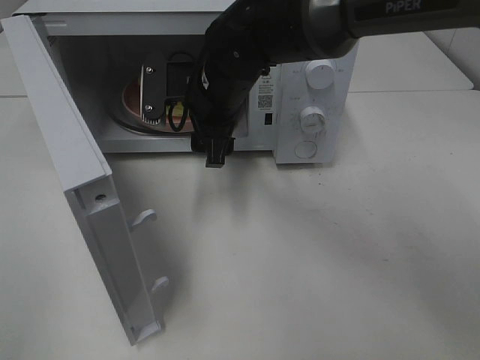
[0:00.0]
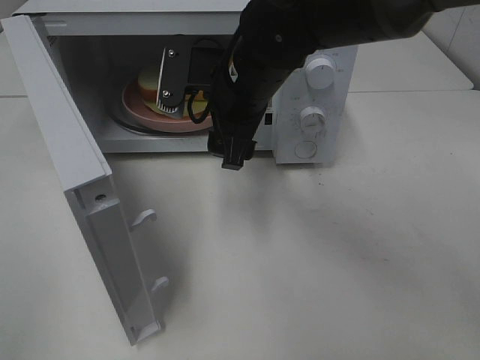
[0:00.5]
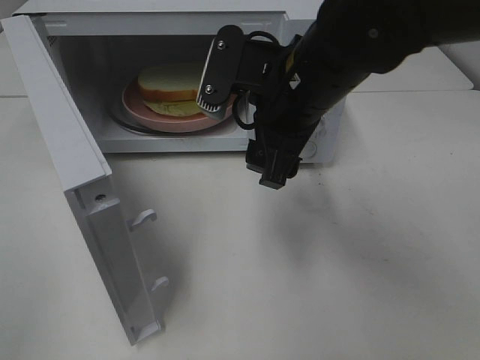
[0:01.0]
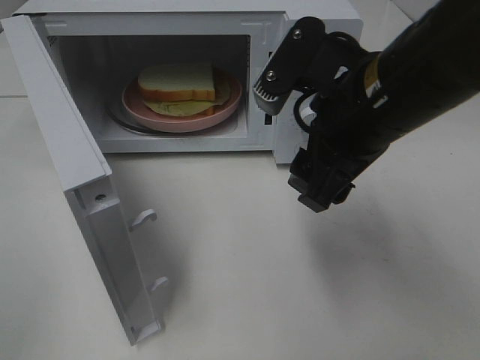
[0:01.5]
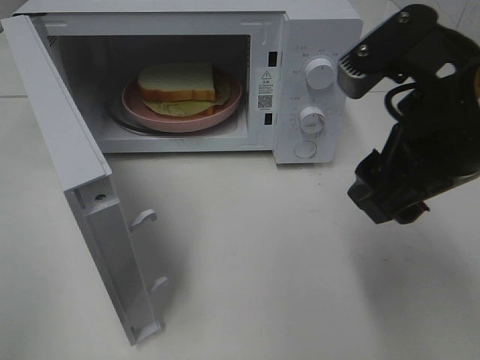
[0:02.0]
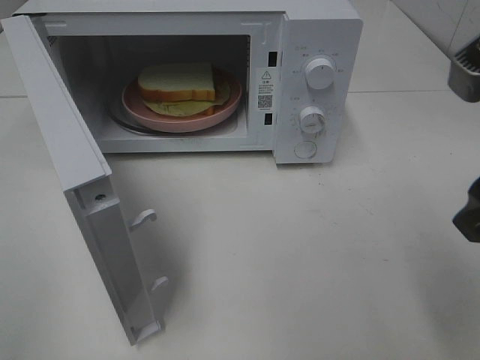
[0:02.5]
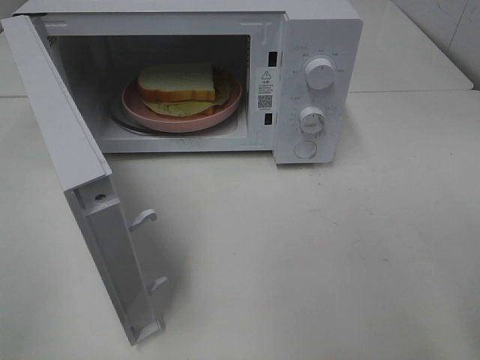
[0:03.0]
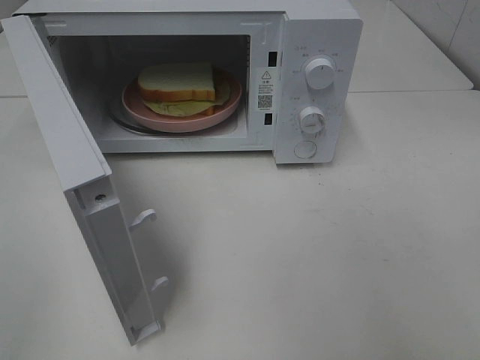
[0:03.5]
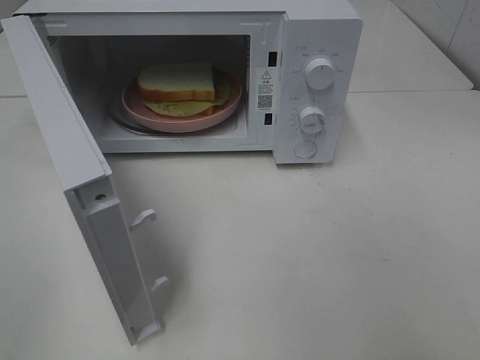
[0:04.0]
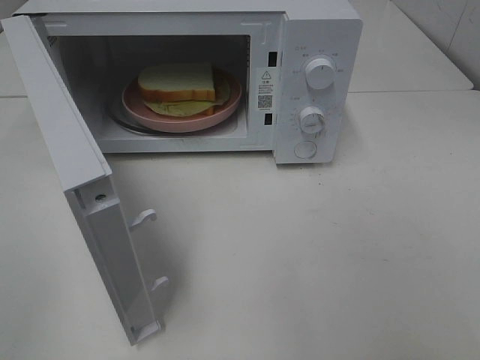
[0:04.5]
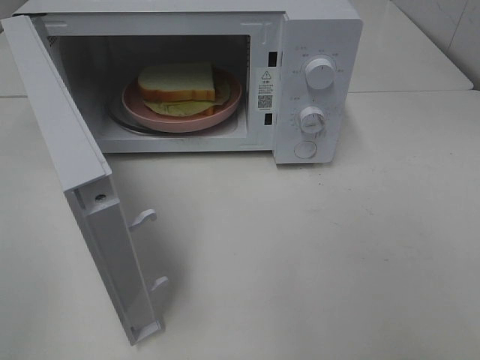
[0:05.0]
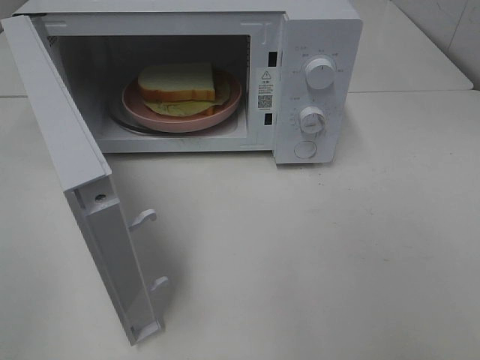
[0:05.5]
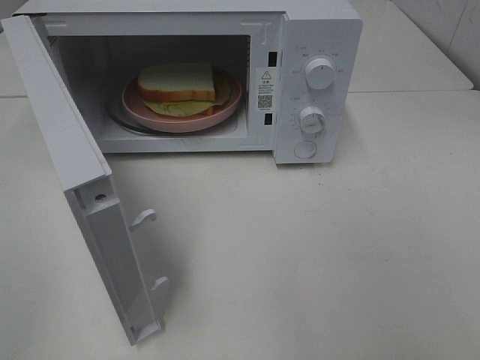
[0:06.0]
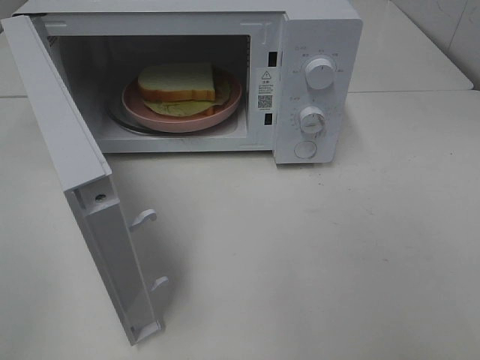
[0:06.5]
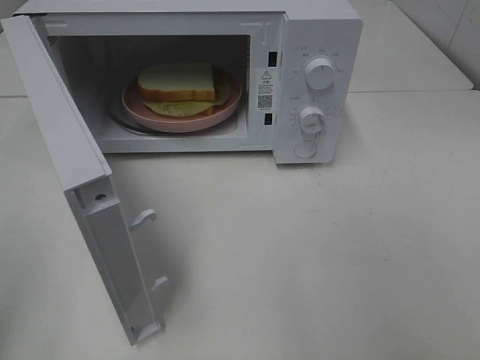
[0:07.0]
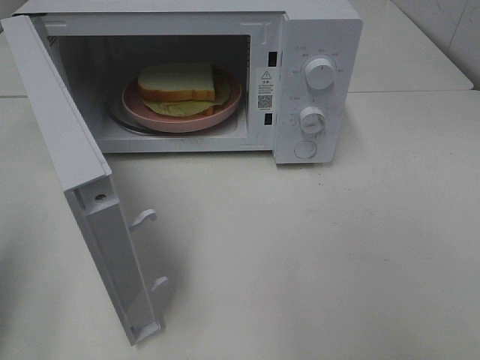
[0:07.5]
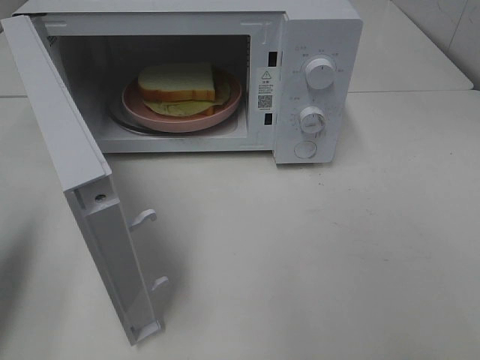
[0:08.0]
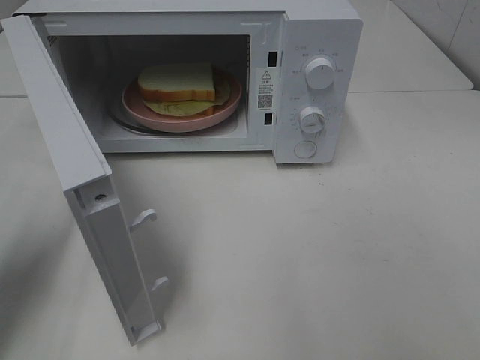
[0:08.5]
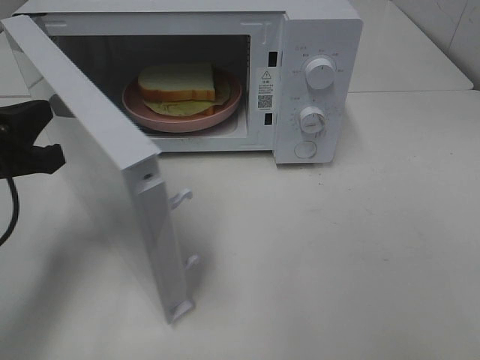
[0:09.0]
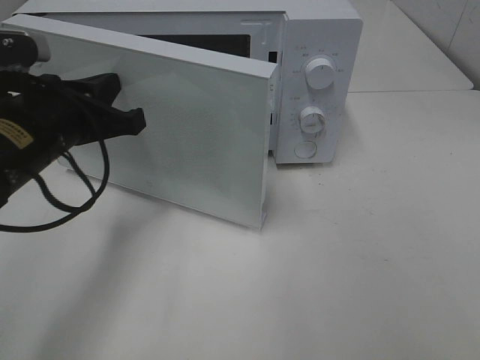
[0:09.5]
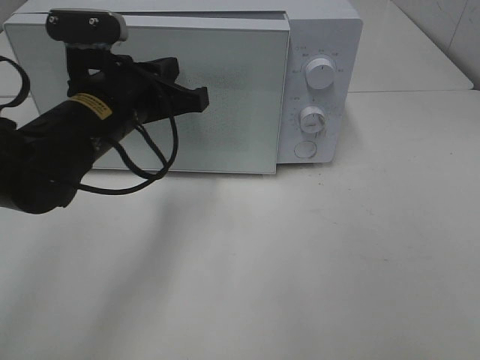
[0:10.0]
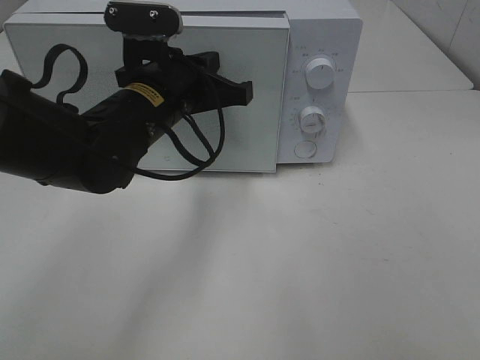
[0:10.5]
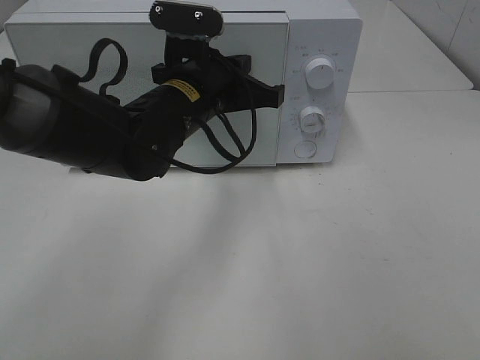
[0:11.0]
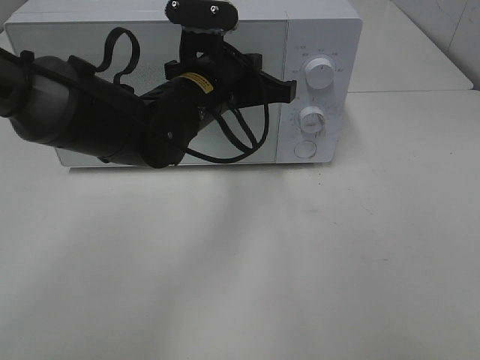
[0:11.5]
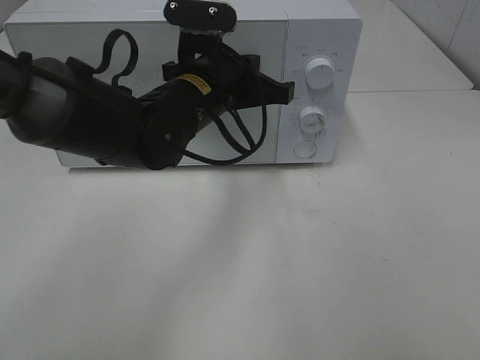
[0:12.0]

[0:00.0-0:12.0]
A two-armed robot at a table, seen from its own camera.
Task of the whole recording: Heat Sandwich.
0:00.0 to 0:02.0: The right gripper shifts approximately 25 cm backward, to the right and upward.
0:02.0 to 0:04.0: The right gripper heads backward and to the right, covering some 20 cm.
0:06.0 to 0:08.0: The left gripper is displaced forward by about 15 cm, and closes.
0:08.0 to 0:10.0: The left gripper is displaced to the right and forward by roughly 25 cm.
0:10.0 to 0:12.0: The left gripper is displaced to the right by approximately 10 cm.

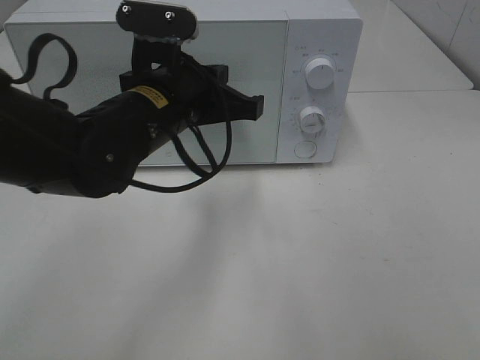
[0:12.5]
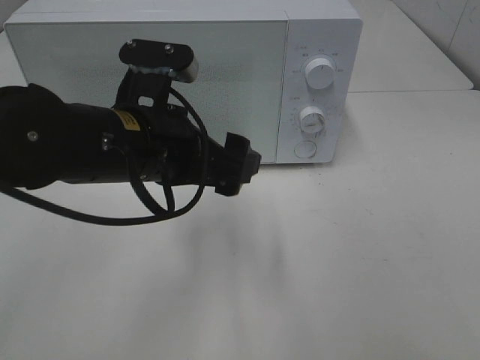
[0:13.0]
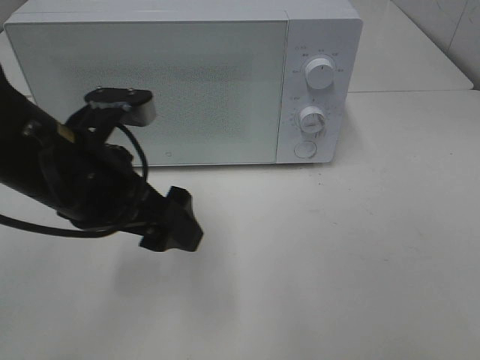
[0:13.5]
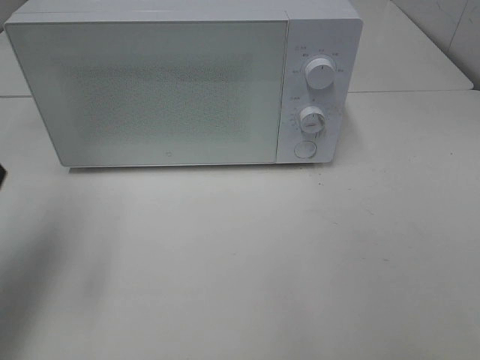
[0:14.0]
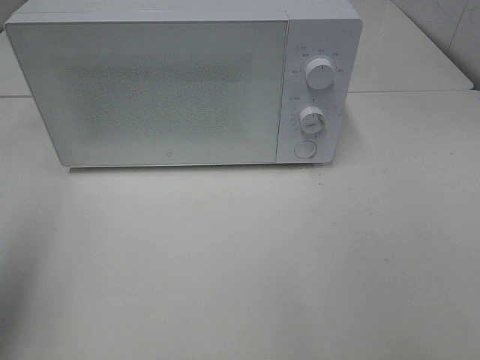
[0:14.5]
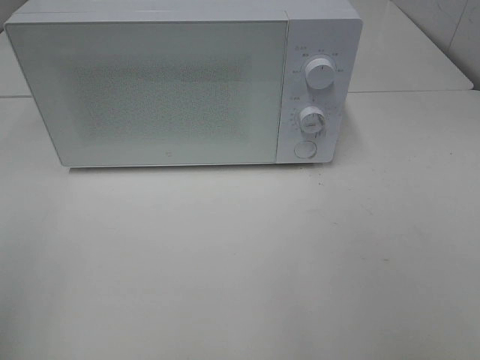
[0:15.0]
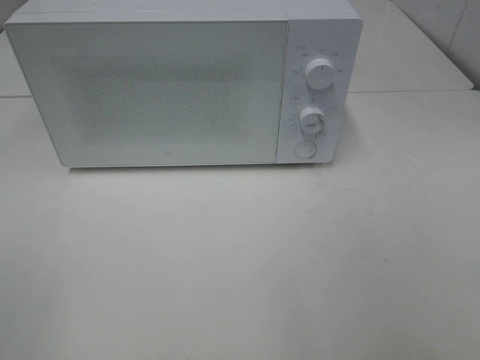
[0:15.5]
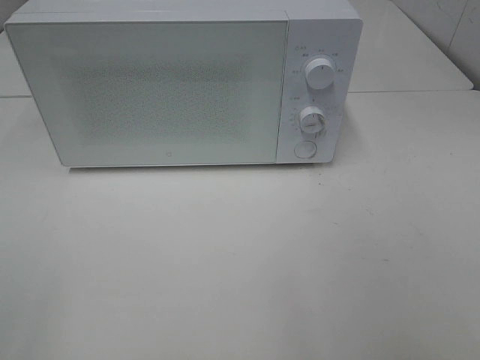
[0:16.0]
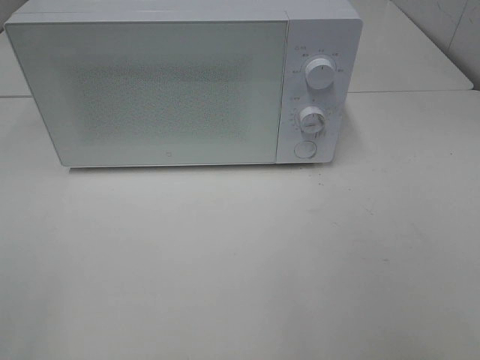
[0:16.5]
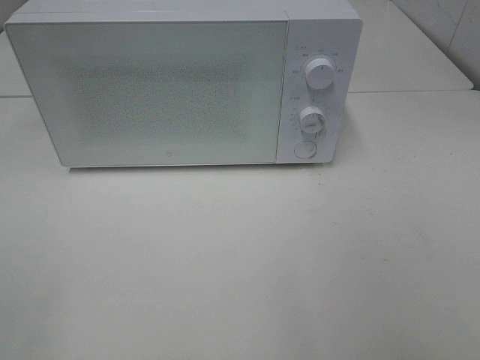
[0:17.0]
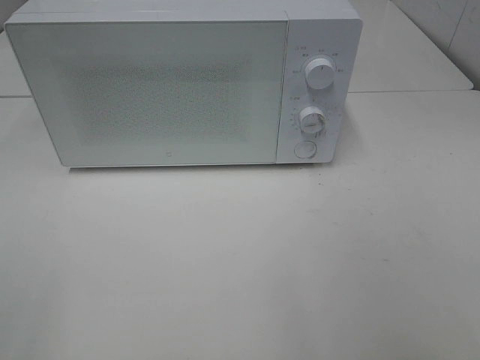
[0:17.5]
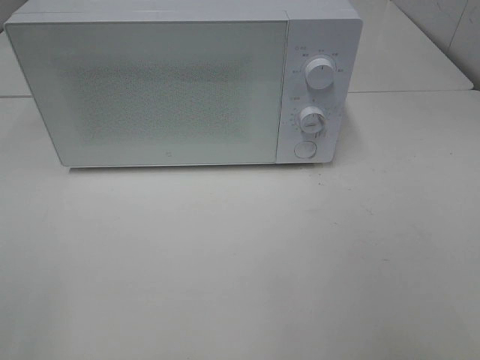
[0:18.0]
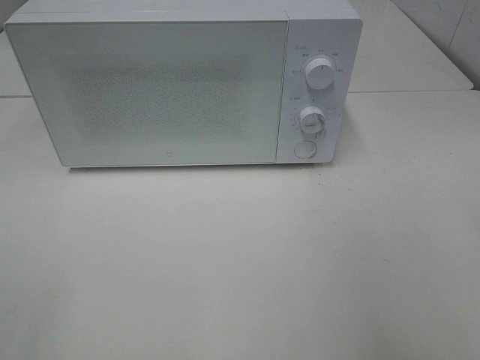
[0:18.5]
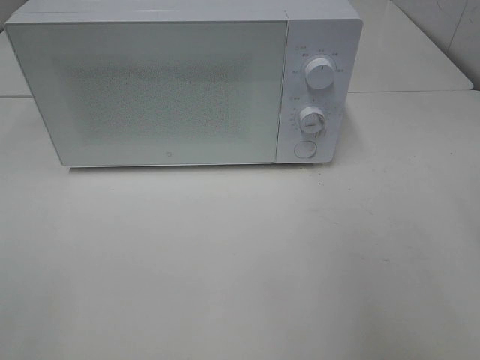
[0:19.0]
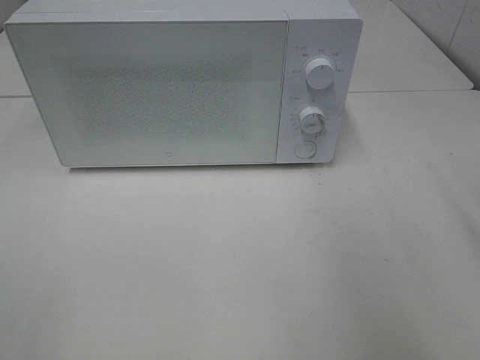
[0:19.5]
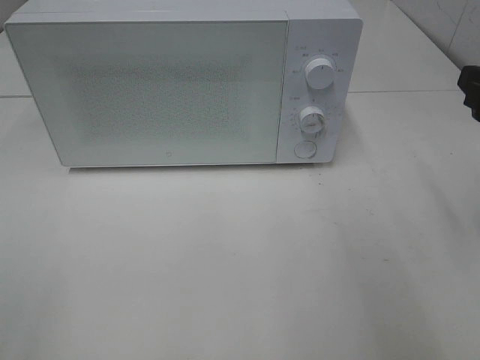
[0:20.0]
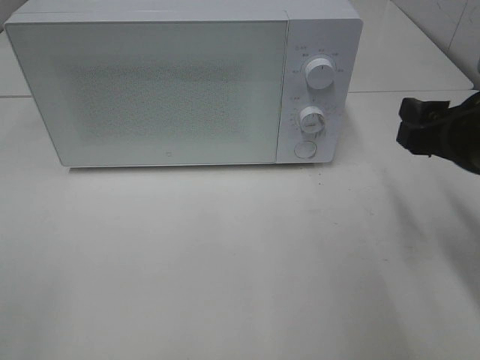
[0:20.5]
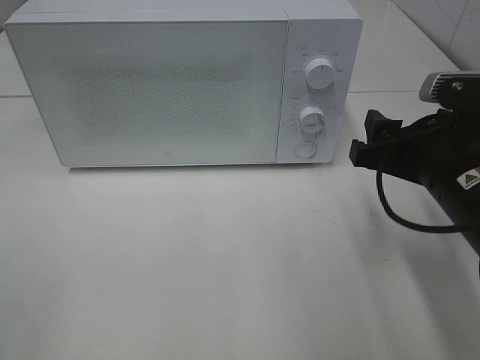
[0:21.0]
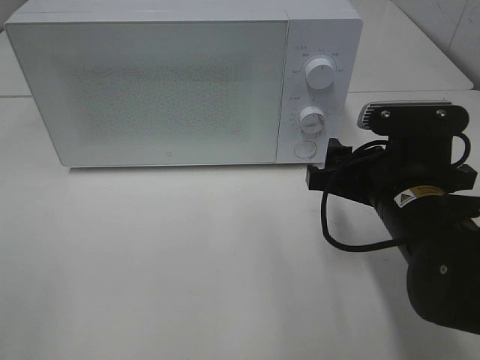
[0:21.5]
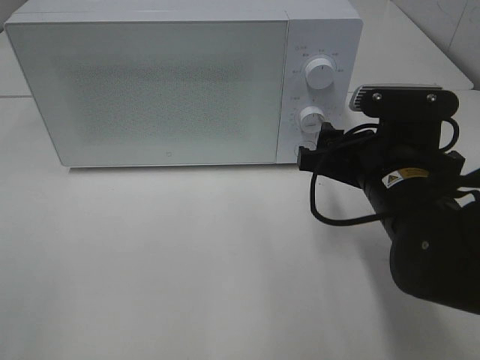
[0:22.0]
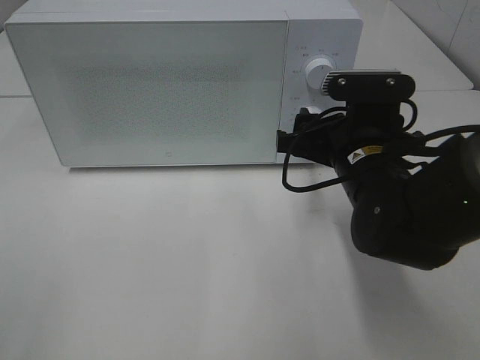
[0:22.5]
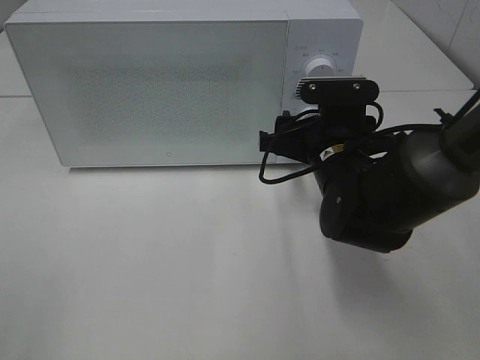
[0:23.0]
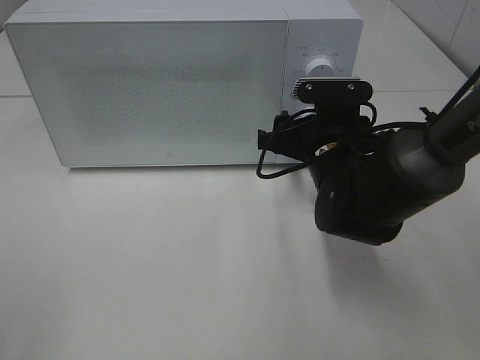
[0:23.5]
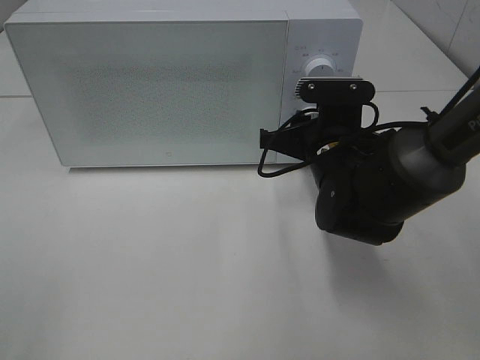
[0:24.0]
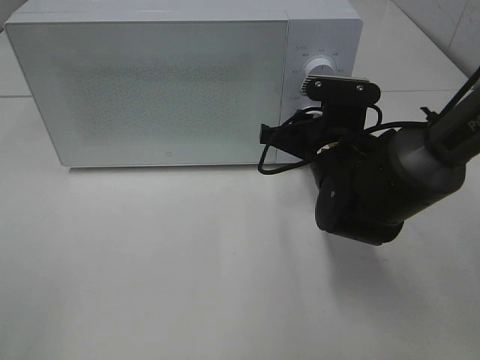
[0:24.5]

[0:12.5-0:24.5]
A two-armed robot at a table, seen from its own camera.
Task of the whole recording: Heat Sandwich.
0:12.5 to 0:14.5: The left gripper moves to the left, backward and upward, approximately 30 cm, and opens up.
0:14.5 to 0:16.5: The left gripper travels backward by approximately 15 cm.
0:18.5 to 0:20.5: The right gripper travels forward and downward by roughly 15 cm.
0:20.5 to 0:22.5: The right gripper shifts about 15 cm to the left, forward and downward.
0:22.5 to 0:24.5: The right gripper ends up about 5 cm from where it was, and closes up.

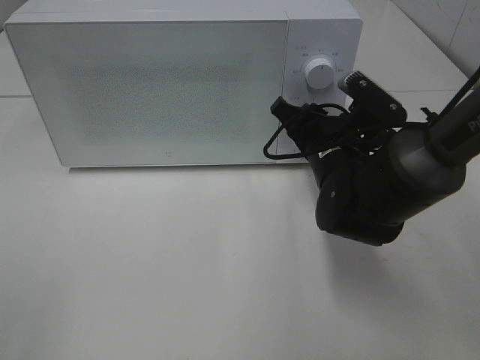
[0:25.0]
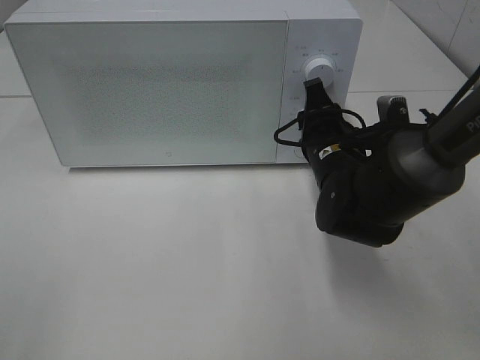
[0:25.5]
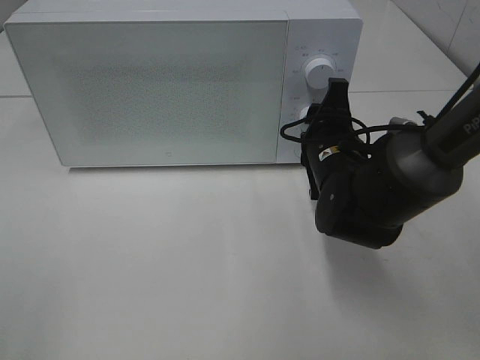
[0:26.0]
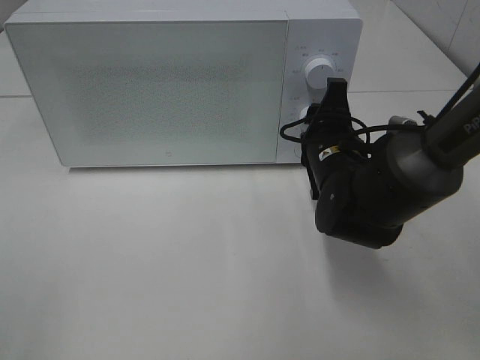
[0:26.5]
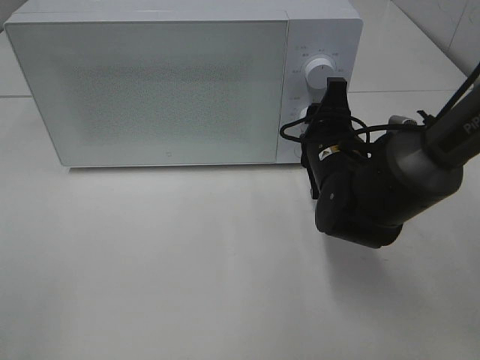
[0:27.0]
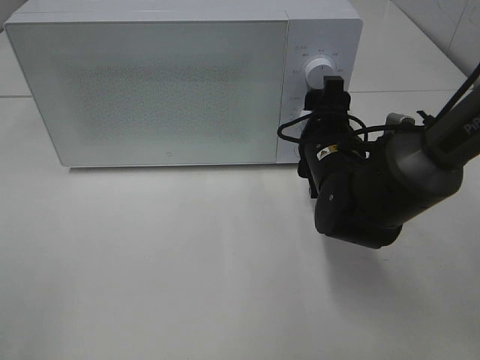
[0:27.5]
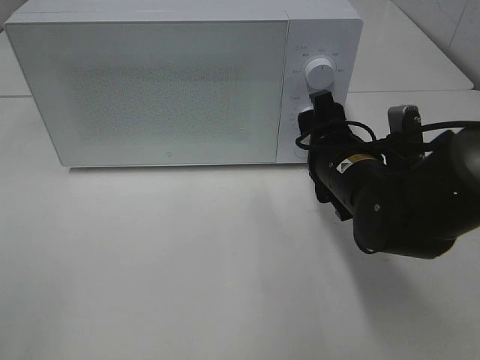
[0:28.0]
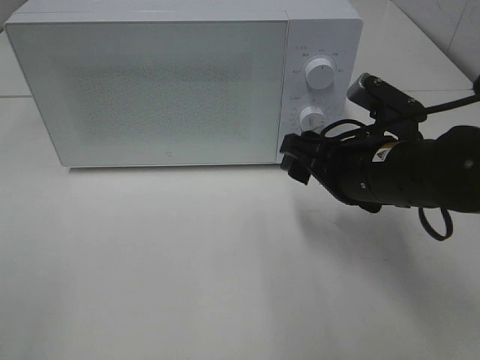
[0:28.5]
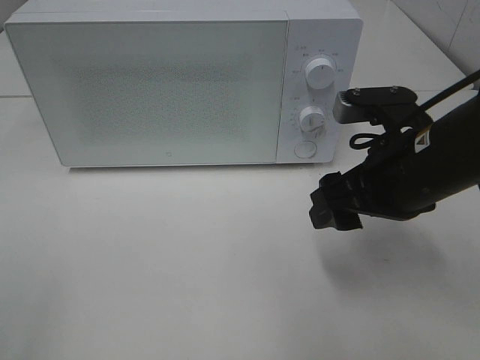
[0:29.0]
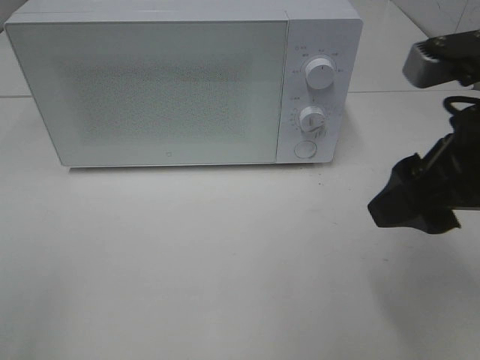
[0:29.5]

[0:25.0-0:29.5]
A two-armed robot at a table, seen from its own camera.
Task of the whole recording: Heat Sandwich.
Step, 0:25.0 to 0:27.0: Right hand: twist timer button.
0:27.0 to 0:29.5: The right gripper heads upward, backward and to the right, covering about 20 cm.
